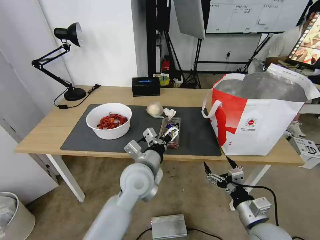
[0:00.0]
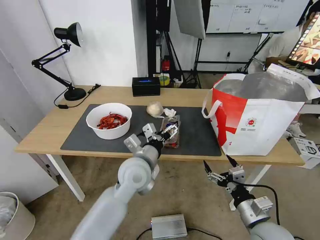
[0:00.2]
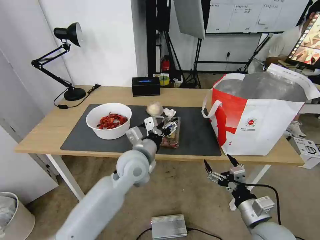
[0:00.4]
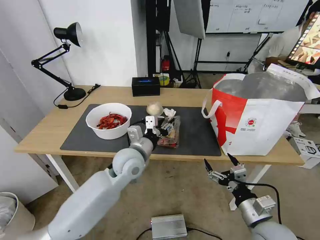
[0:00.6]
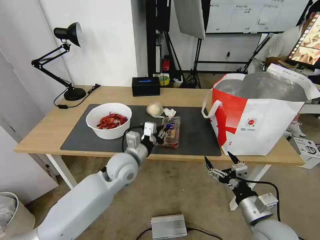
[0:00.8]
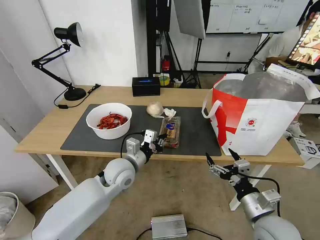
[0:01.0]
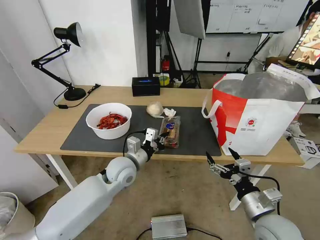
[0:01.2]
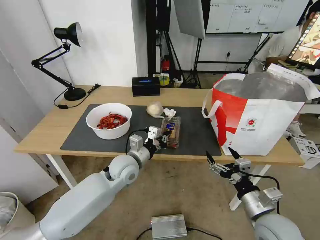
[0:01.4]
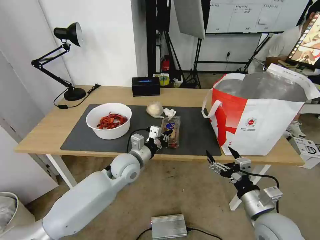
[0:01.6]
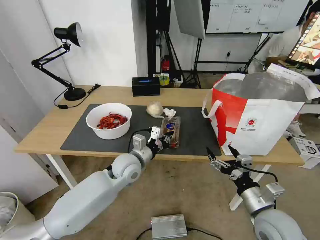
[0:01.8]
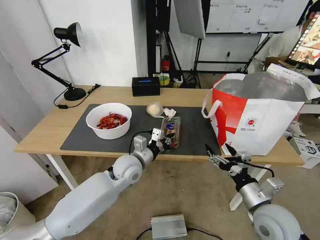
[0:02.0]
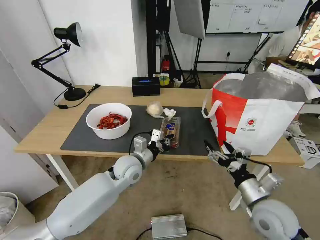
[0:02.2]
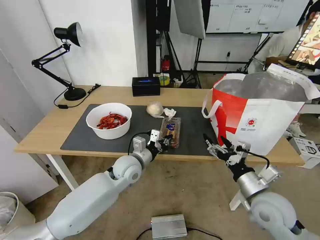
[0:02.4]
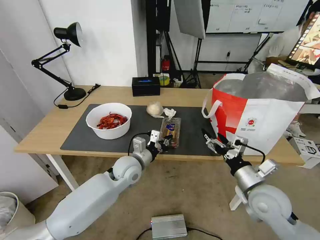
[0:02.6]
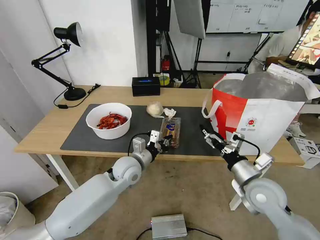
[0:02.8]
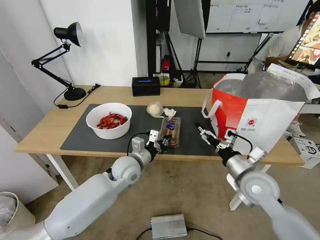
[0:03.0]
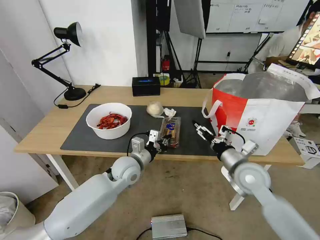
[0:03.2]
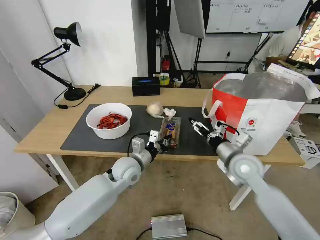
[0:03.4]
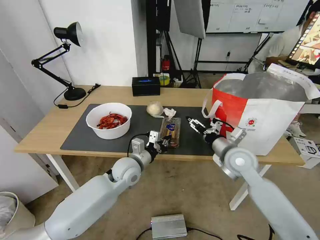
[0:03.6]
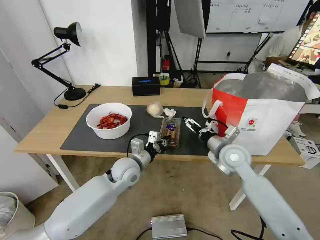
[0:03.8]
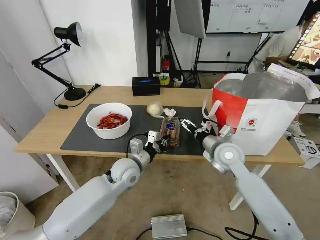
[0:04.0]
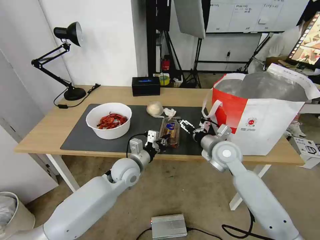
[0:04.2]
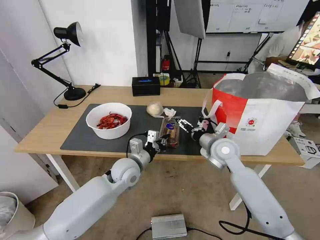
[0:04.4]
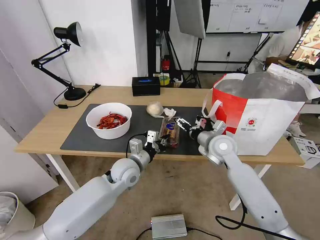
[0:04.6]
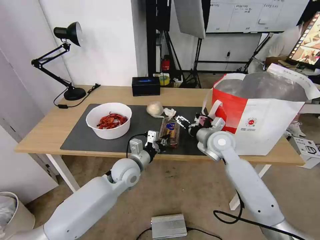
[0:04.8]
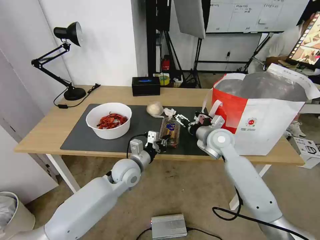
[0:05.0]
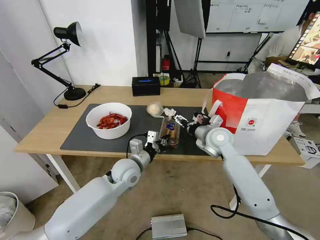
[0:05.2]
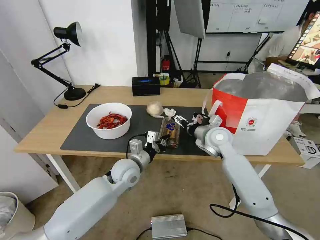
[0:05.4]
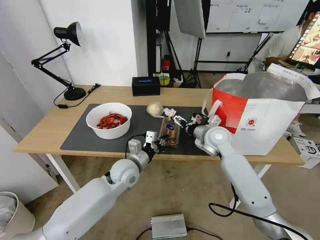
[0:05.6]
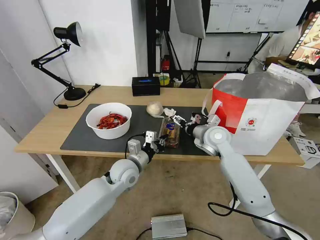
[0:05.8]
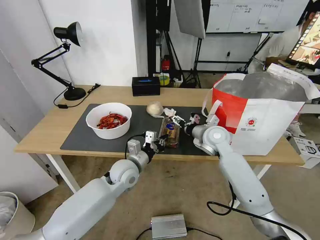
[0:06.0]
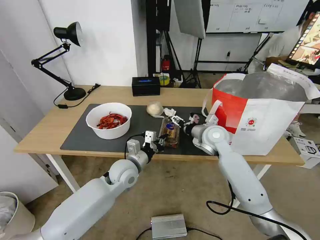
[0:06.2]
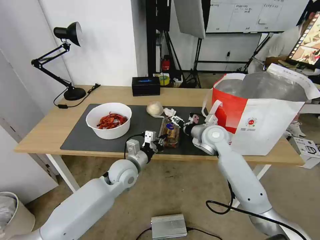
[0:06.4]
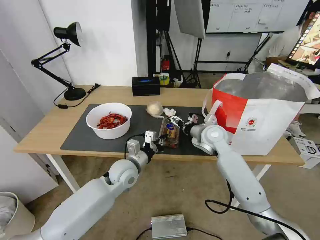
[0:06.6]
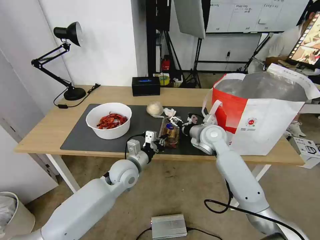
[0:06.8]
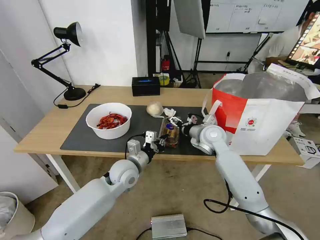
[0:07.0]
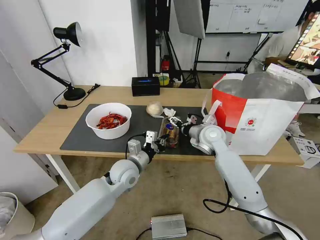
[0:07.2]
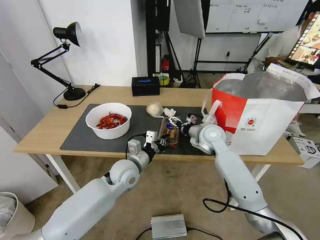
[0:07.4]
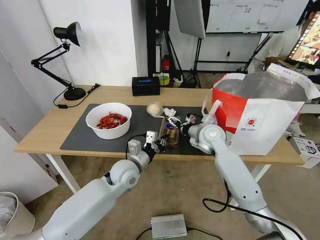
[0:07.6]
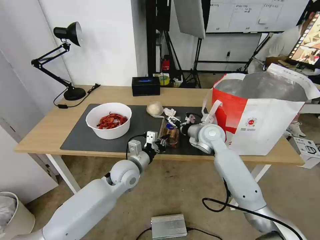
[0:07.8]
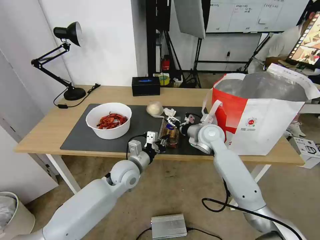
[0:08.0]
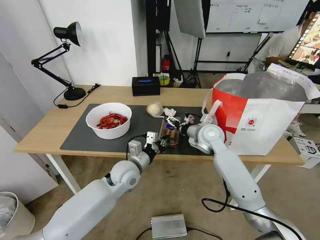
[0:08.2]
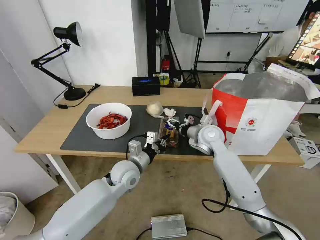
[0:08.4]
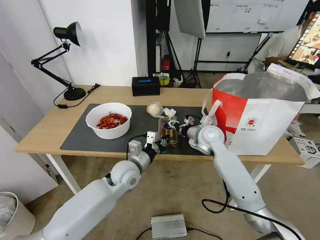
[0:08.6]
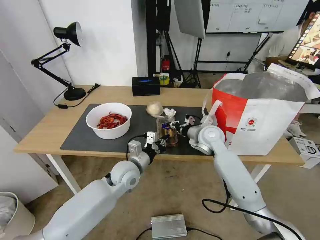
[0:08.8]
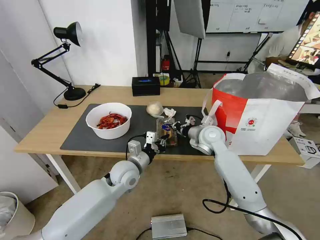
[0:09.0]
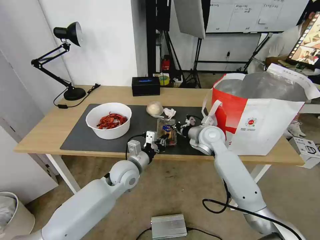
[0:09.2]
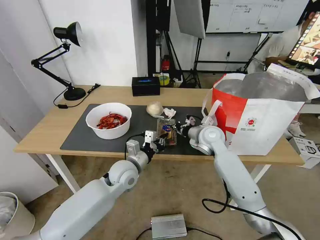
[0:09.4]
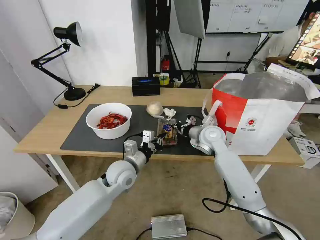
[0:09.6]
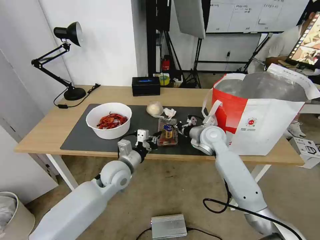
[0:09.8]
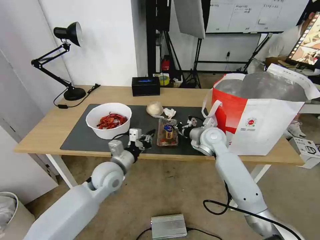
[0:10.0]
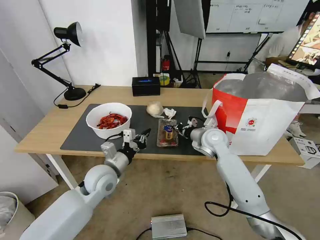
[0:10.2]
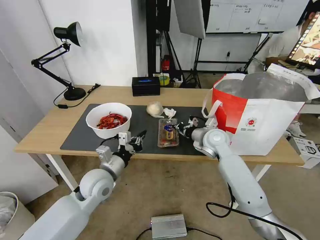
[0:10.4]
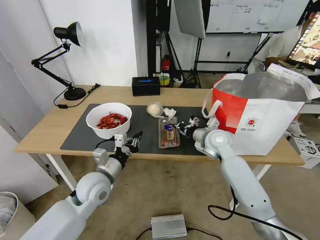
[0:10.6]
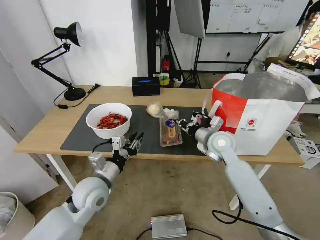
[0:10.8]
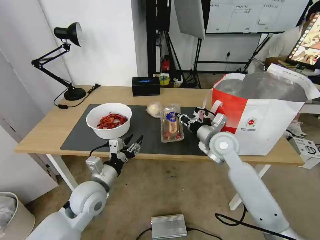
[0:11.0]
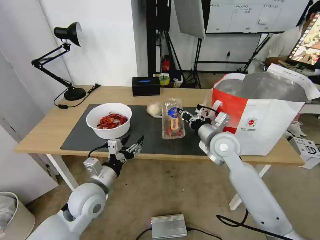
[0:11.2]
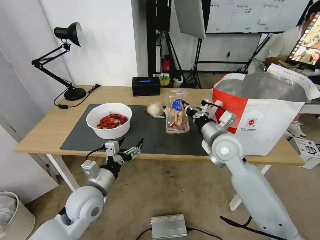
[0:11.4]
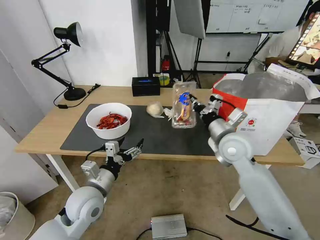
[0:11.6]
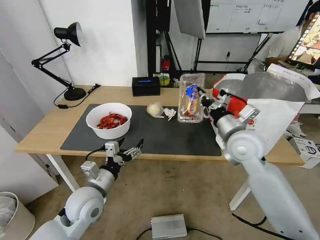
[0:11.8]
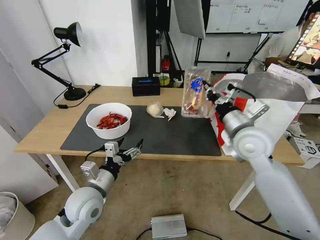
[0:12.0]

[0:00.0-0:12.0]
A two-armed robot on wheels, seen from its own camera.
Task of the whole recording: Pick up the trash from the table and place it into the takeout bag.
0:00.0 to 0:01.6: The left gripper travels forward, downward and to the left by about 10 cm, and closes up.
0:01.6 to 0:03.0: The right gripper heads forward, covering some 10 cm.
0:03.0 to 0:04.4: The right gripper travels forward and to the left by roughly 15 cm.
0:04.4 to 0:06.0: The right gripper goes about 5 cm forward.
0:06.0 to 0:07.6: There are only small adjustments of the grippers.
0:07.6 to 0:09.0: The right gripper closes its fingers.
0:09.0 to 0:10.4: The left gripper is displaced to the left by approximately 5 cm.
0:10.4 to 0:12.0: The left gripper travels backward by about 5 cm, and opens, while the right gripper goes about 15 cm upward and backward.

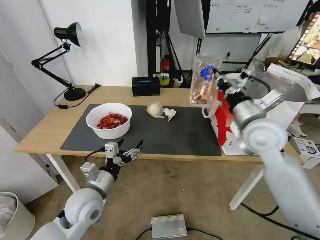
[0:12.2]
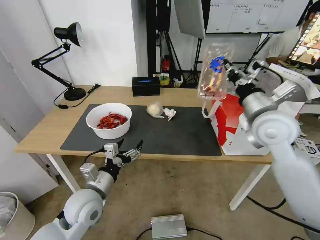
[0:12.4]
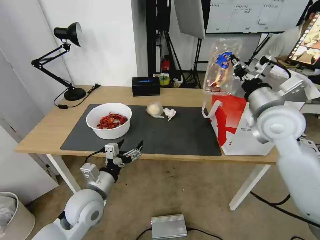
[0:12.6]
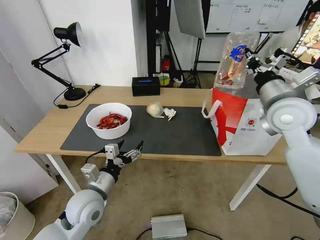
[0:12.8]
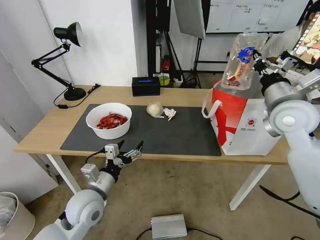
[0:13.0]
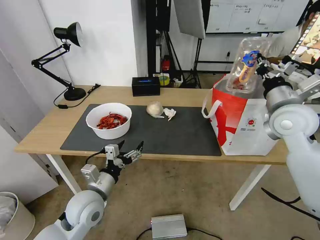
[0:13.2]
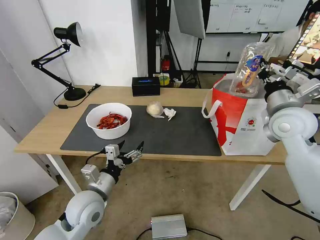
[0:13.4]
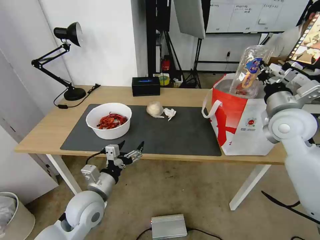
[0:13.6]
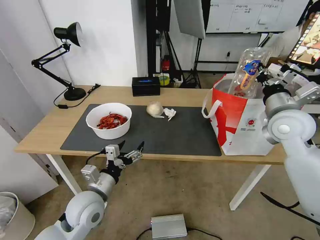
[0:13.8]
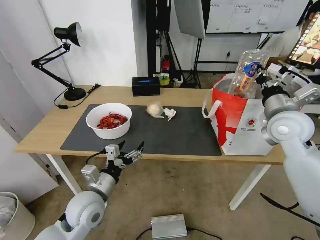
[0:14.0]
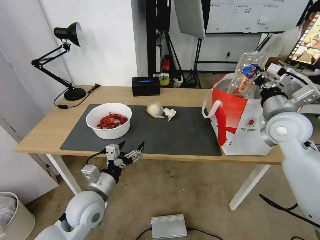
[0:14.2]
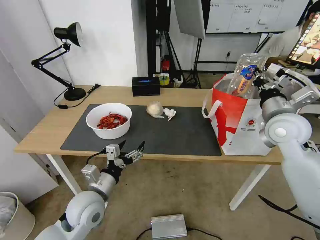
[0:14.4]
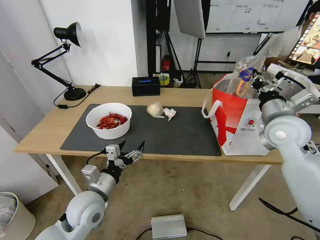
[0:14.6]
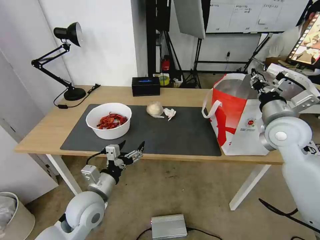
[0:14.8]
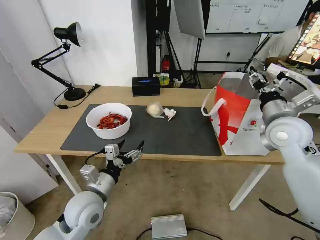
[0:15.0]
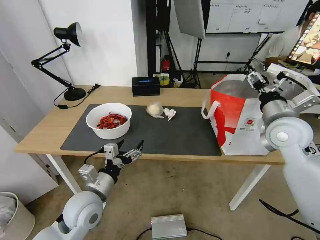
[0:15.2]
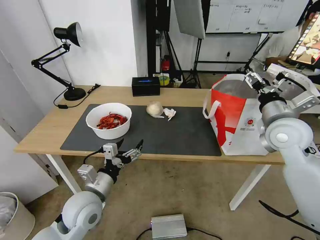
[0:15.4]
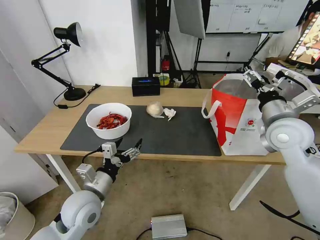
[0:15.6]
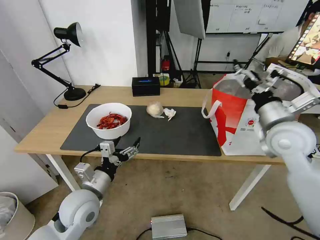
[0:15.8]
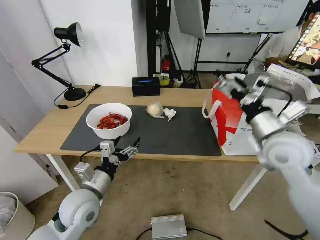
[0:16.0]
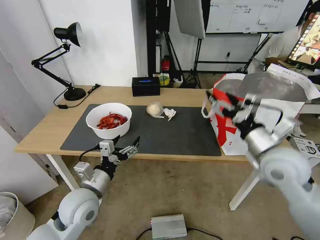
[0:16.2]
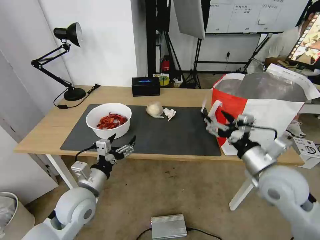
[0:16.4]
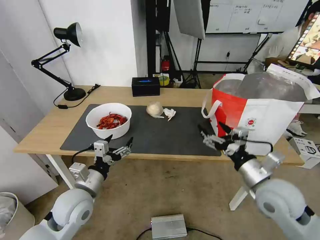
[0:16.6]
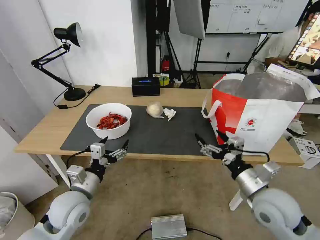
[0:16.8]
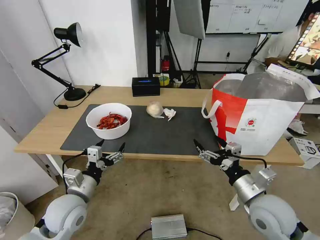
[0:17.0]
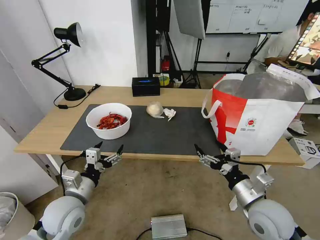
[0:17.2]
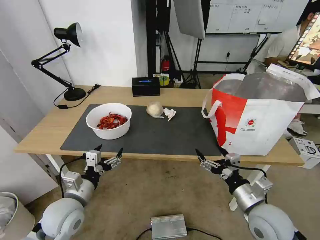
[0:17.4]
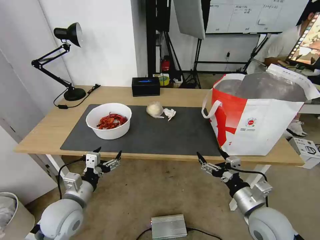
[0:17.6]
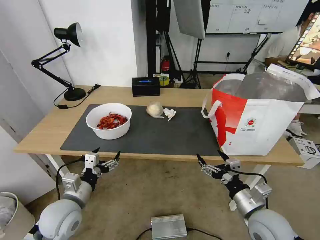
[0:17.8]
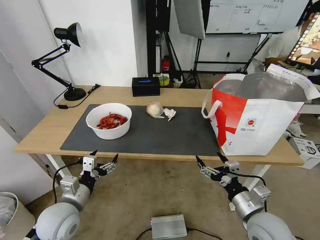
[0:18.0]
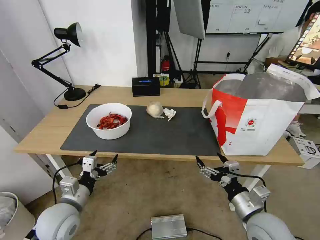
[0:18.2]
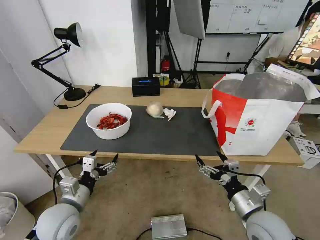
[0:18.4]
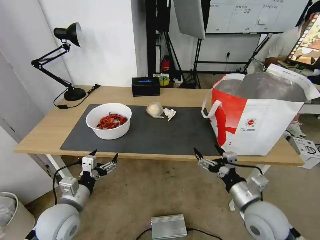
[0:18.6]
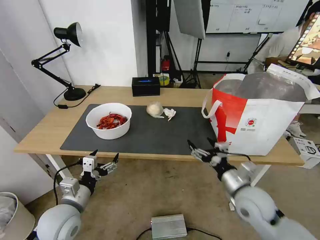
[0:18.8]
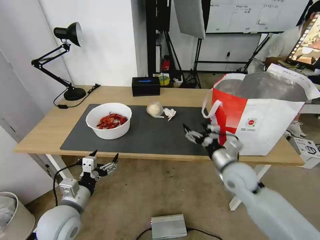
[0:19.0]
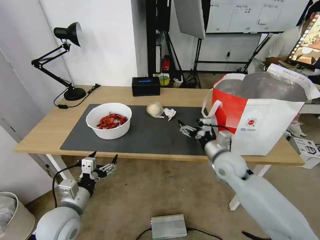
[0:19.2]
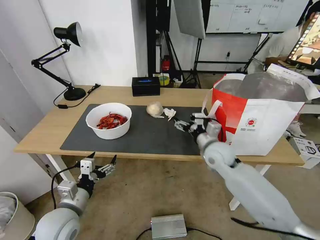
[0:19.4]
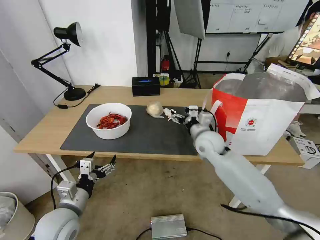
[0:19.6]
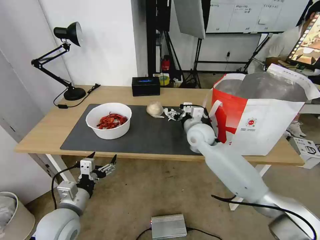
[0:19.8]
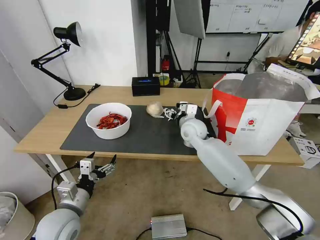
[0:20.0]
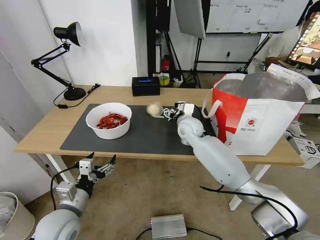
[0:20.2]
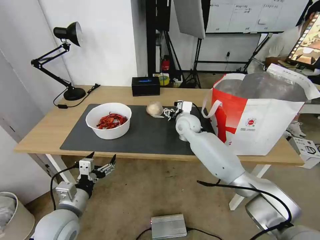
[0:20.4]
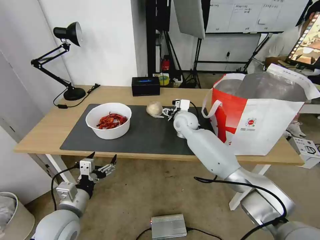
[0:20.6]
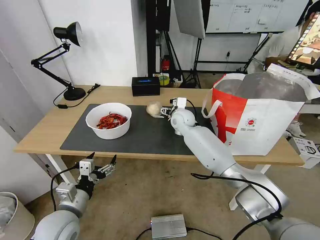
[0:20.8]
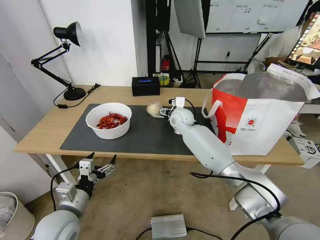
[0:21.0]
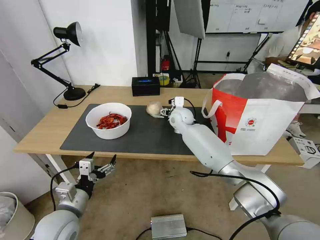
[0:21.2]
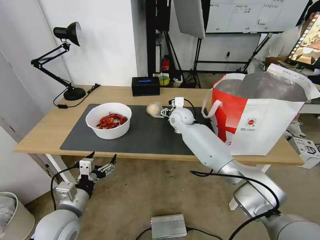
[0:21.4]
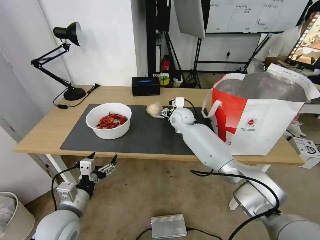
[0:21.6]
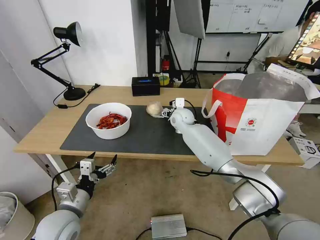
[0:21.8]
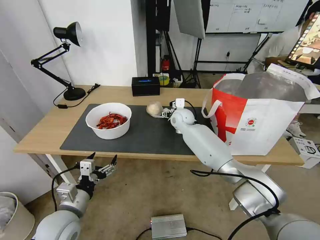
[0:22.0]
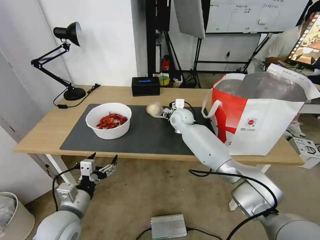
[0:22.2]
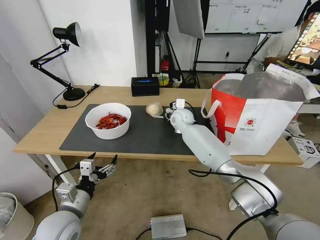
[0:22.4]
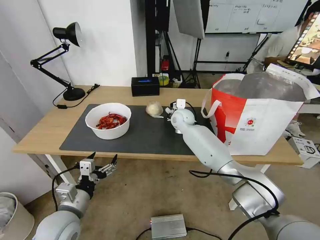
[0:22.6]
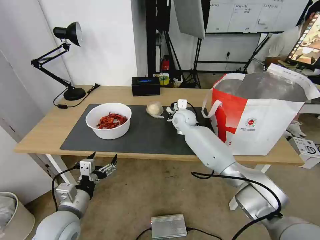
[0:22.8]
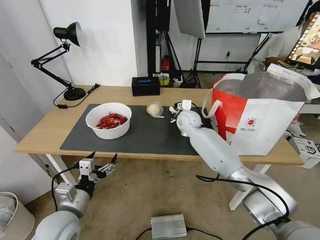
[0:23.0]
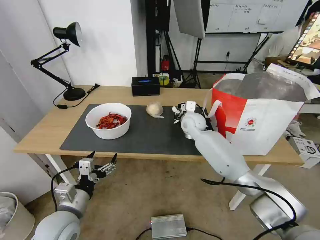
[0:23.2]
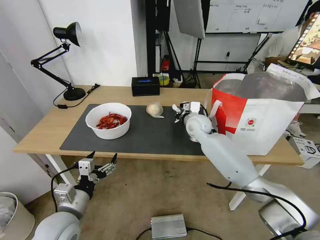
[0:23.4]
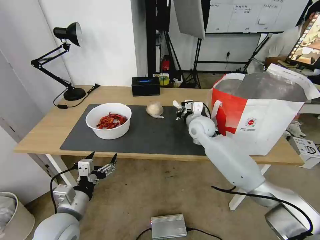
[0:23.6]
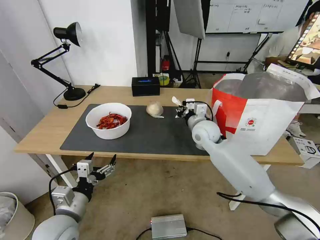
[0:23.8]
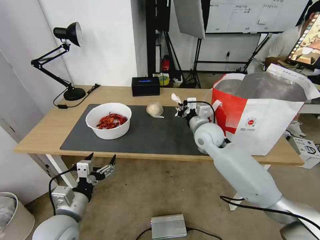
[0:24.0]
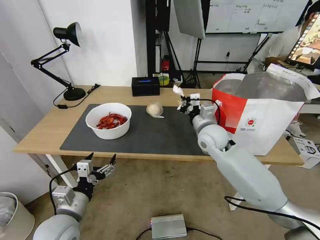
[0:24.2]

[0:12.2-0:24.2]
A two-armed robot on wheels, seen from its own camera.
Task of the whole recording: Pick up the trash from the table and place it into the takeout bag.
0:12.2 to 0:13.8: The right gripper shifts roughly 10 cm to the right.
0:13.8 to 0:15.2: The right gripper opens.
0:15.2 to 0:16.6: The right gripper shifts approximately 15 cm backward and downward.
0:16.6 to 0:18.2: The left gripper changes place by about 5 cm, while the right gripper heads downward and backward, covering some 10 cm.
0:18.2 to 0:19.8: The right gripper moves forward and to the left, about 30 cm.
0:19.8 to 0:21.2: The right gripper moves forward and to the left, about 10 cm.
0:21.2 to 0:22.6: The right gripper closes up.
0:22.6 to 0:24.2: The right gripper is displaced backward and to the right by roughly 15 cm.
